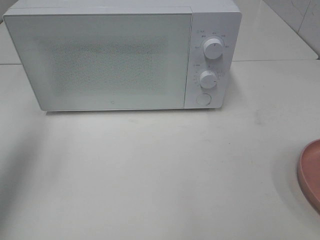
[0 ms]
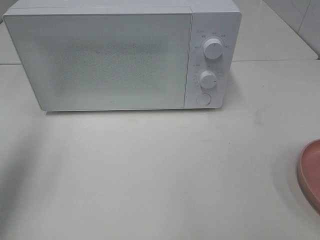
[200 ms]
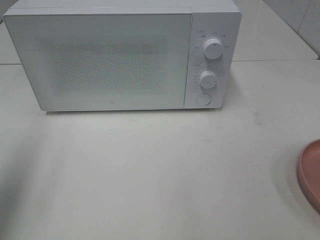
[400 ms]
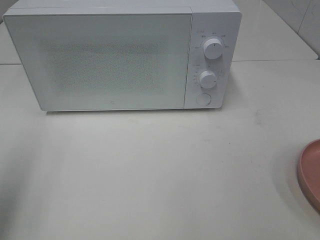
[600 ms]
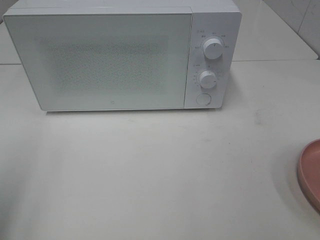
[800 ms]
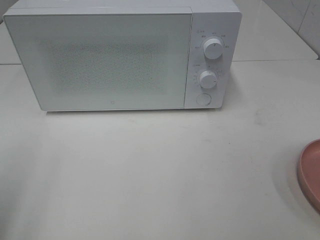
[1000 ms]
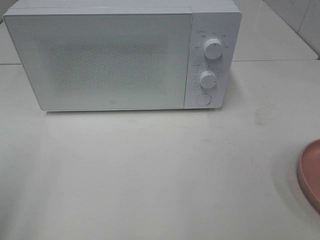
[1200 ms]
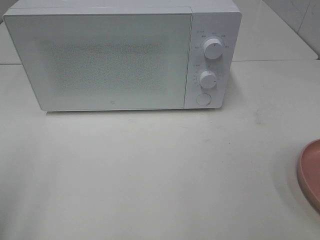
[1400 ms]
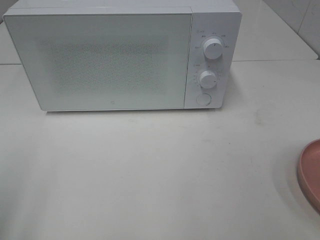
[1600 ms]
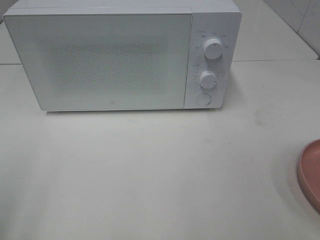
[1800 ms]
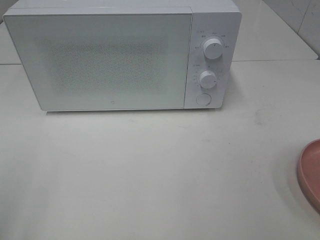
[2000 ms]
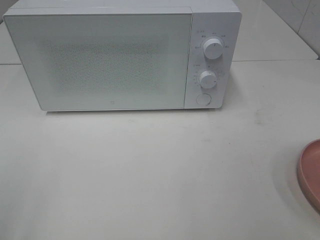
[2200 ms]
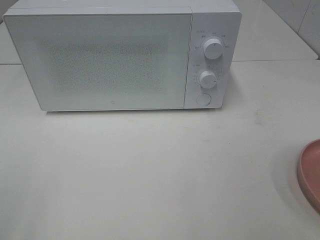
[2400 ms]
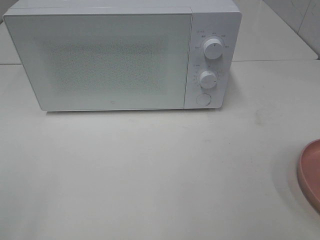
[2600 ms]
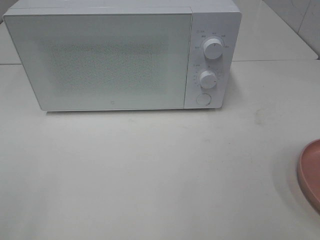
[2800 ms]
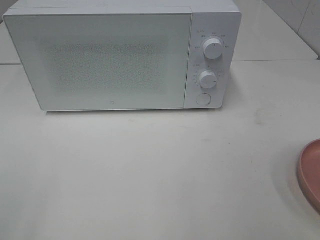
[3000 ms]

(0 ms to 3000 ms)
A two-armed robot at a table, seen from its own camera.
Task of the whole recording: Heat the burger.
0 ms - 1600 ms: The left gripper heads backward, covering about 15 cm.

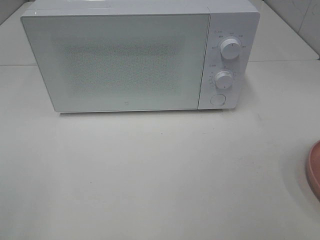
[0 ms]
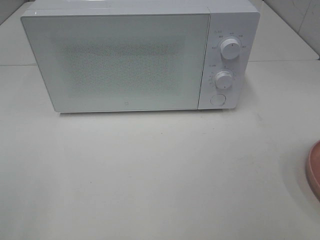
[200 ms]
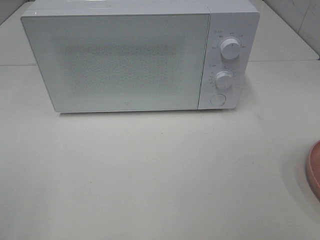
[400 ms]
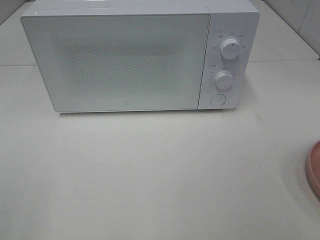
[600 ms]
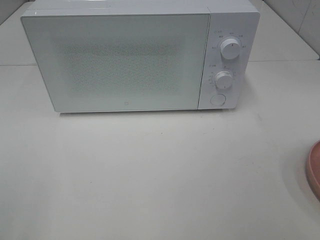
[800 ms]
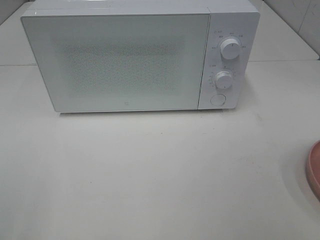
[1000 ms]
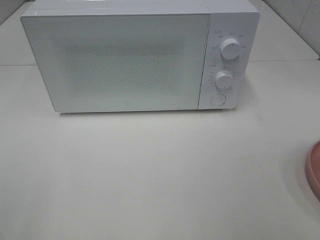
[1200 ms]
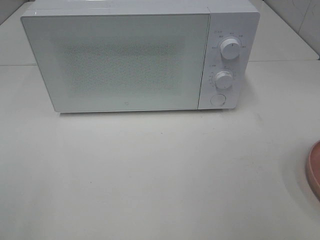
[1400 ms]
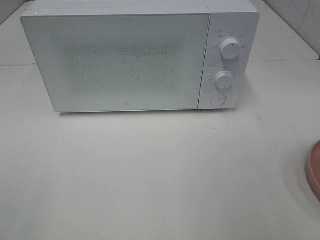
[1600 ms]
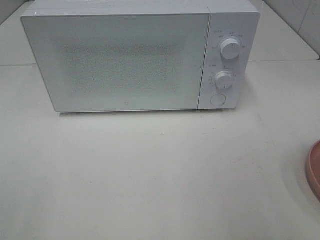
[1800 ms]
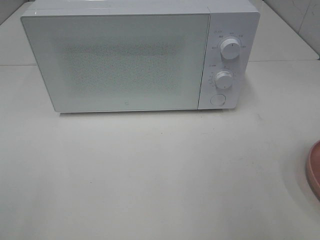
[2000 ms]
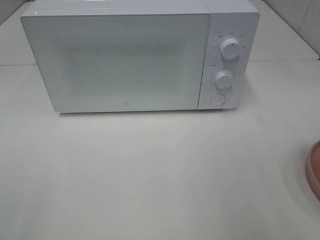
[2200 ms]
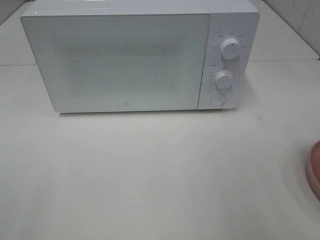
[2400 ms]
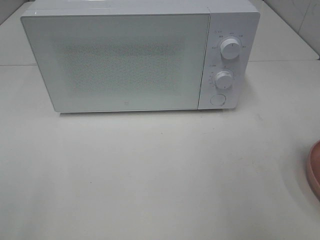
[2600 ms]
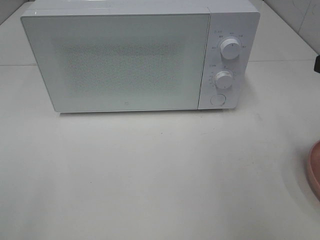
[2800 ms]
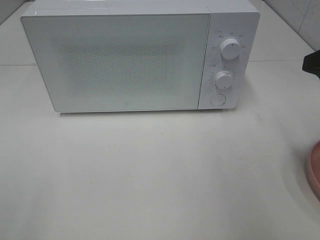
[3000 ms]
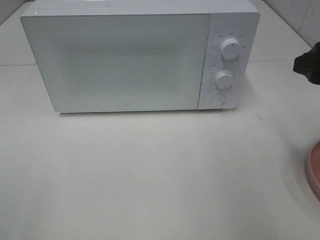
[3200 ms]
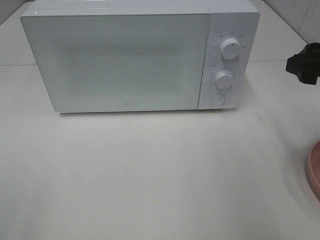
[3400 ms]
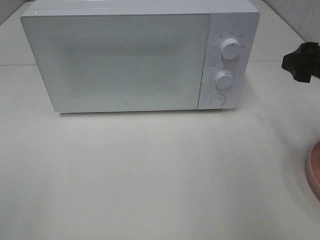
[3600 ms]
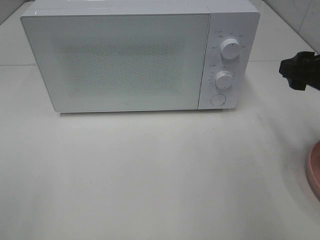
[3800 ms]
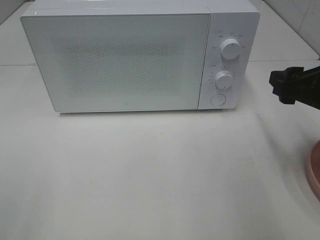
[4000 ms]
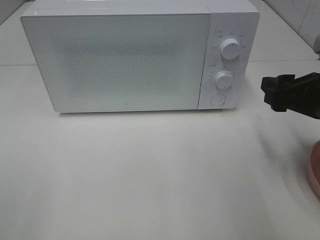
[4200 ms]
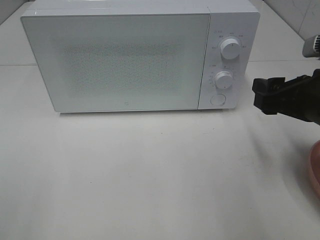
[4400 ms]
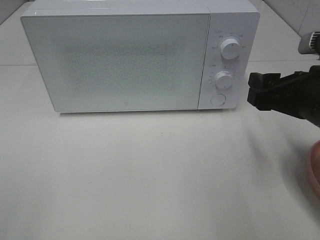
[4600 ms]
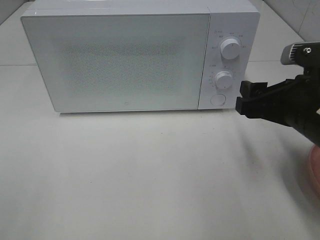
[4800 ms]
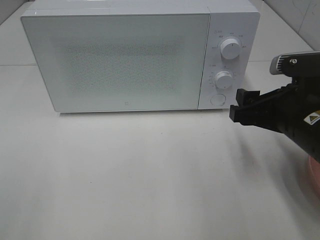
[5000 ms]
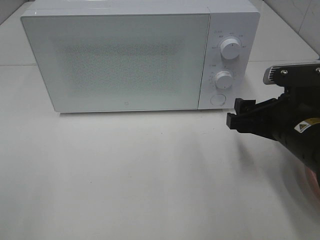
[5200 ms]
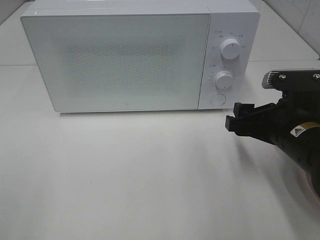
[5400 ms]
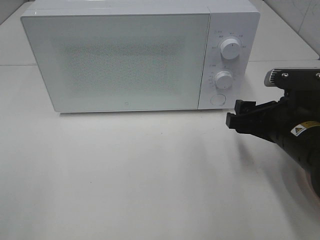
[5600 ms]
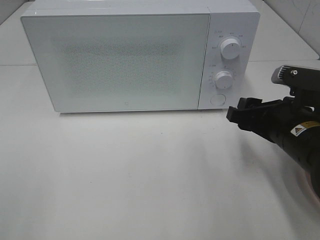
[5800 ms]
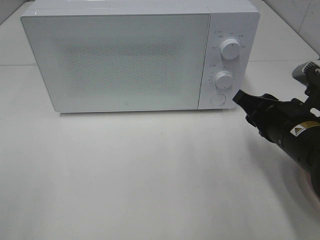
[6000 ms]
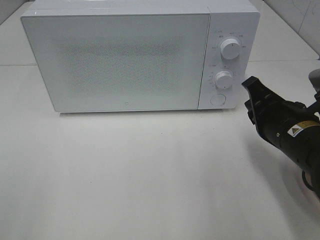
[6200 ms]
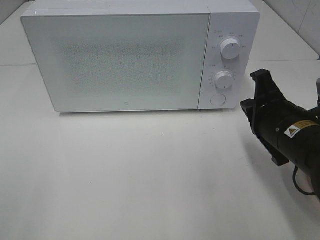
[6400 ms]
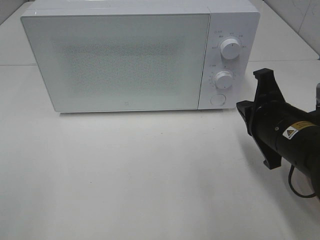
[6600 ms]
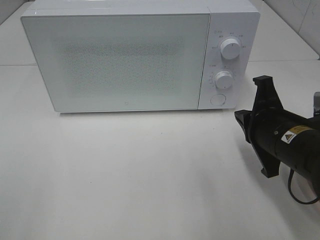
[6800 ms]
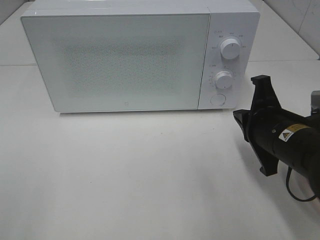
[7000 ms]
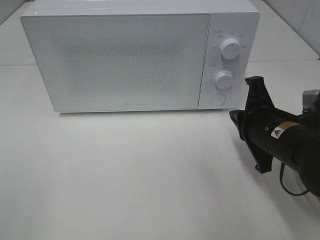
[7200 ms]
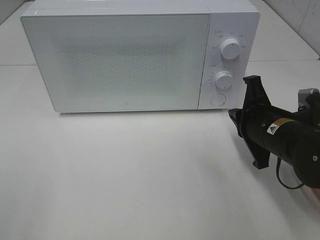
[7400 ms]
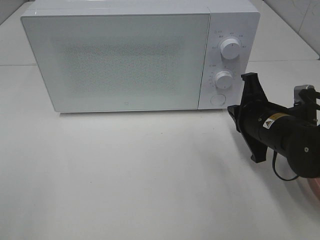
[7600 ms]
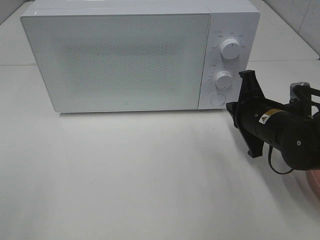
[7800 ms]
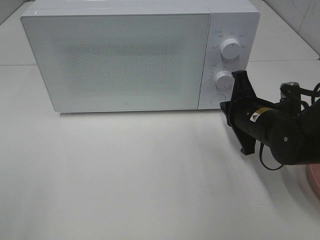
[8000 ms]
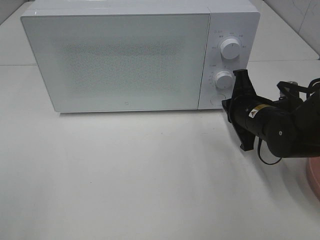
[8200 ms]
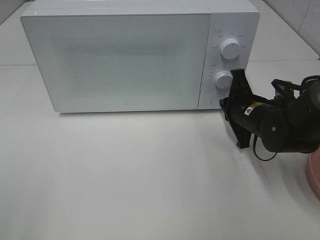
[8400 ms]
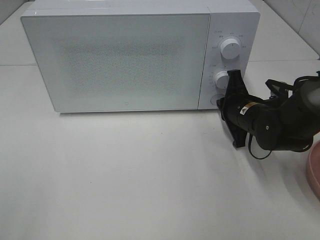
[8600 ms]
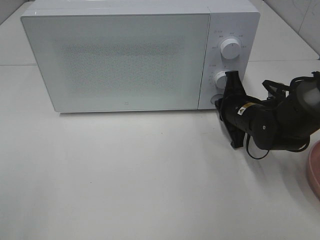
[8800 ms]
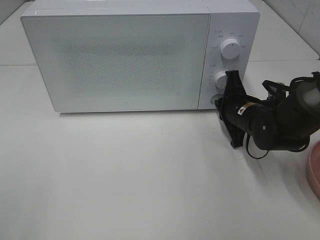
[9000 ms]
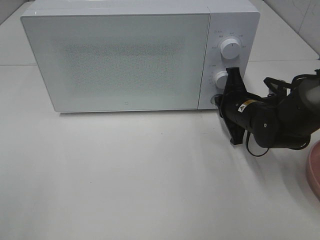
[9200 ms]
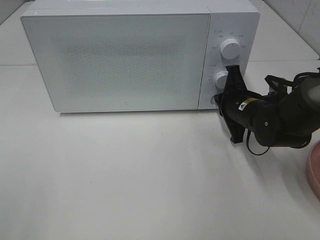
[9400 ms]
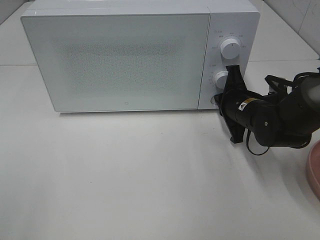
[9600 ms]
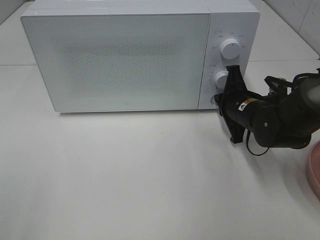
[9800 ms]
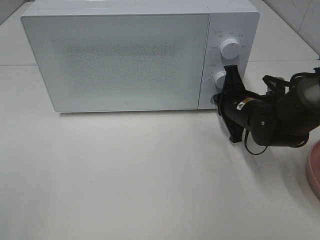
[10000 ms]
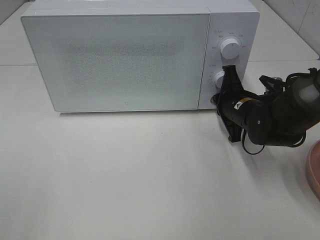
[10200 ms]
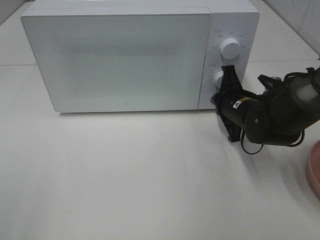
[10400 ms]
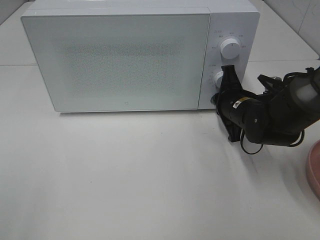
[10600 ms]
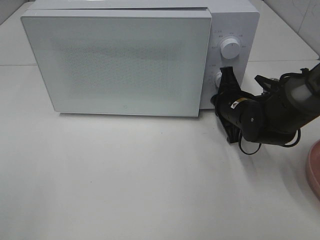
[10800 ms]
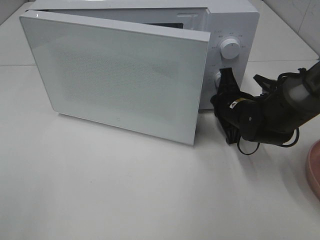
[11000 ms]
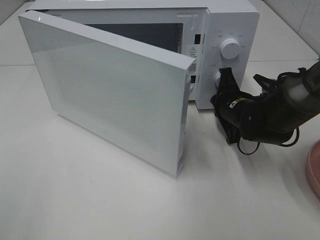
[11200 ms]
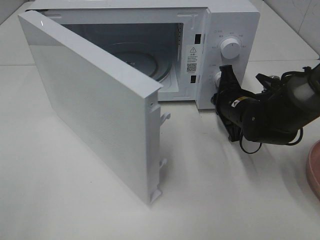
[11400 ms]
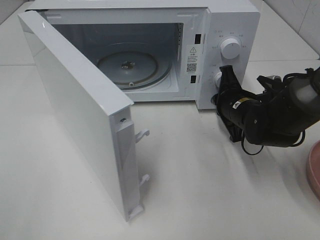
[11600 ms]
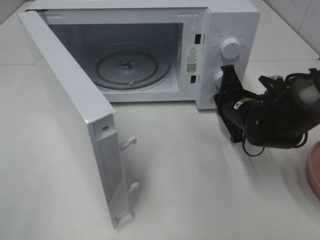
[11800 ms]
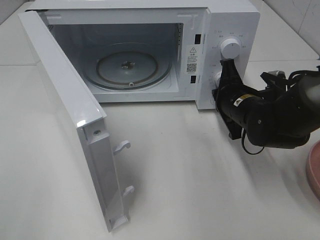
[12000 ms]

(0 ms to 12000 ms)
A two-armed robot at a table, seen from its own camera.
Task of the whole recording: Heat the burger.
Step, 0 ms - 11800 ms: Right hand: press the switch.
1600 ms - 3000 ms: The right gripper heads forward, covering roughly 15 cm.
3000 ms - 4400 ms: The right gripper goes about 10 cm downward.
4400 ms - 6000 ms: The right gripper travels downward by about 5 cm, and closes.
6000 ms - 7600 ms: The right gripper shifts by about 5 cm, and closes its fingers.
7600 ms - 9000 ms: The right gripper is displaced forward by about 5 cm.
9000 ms - 10400 ms: The grippers make only small movements.

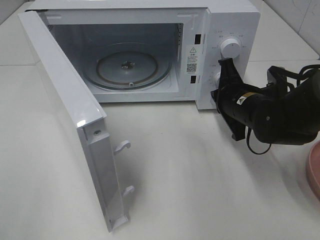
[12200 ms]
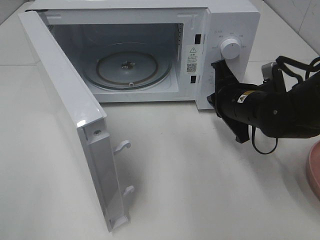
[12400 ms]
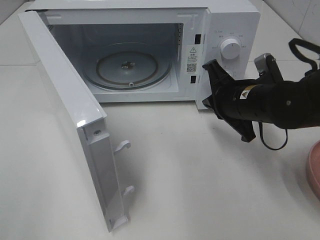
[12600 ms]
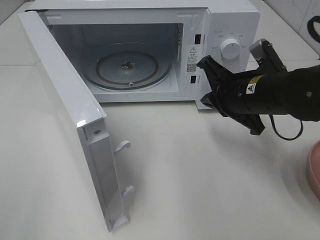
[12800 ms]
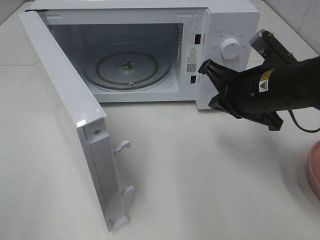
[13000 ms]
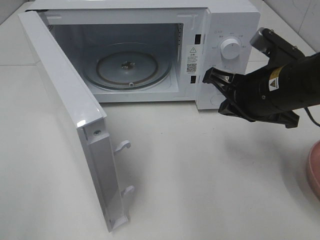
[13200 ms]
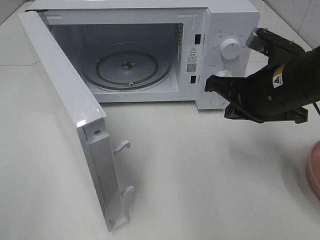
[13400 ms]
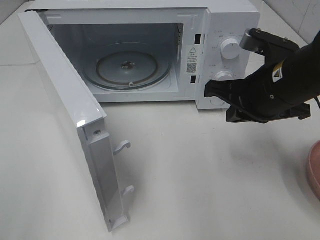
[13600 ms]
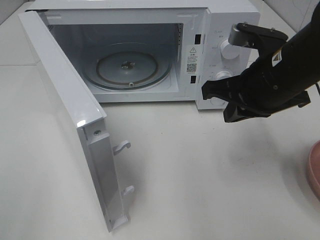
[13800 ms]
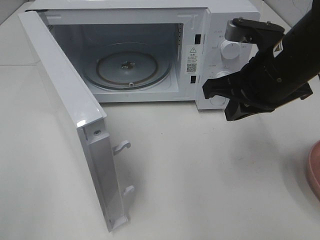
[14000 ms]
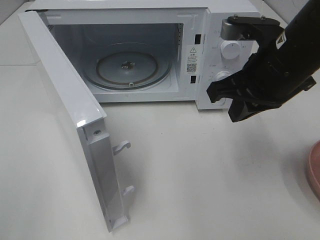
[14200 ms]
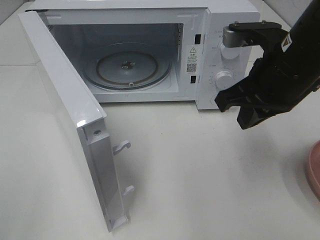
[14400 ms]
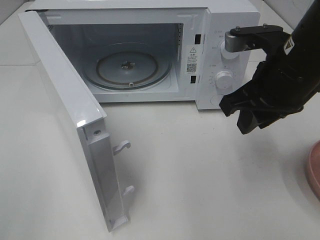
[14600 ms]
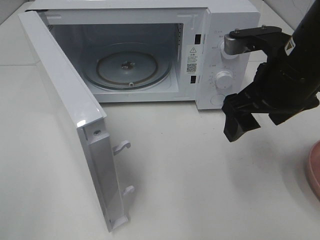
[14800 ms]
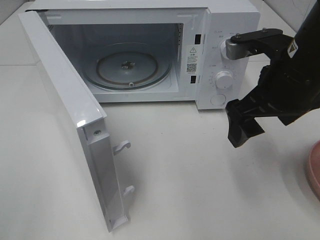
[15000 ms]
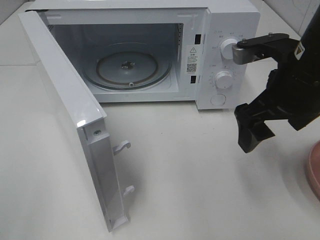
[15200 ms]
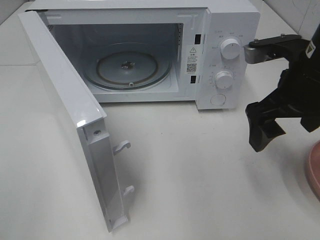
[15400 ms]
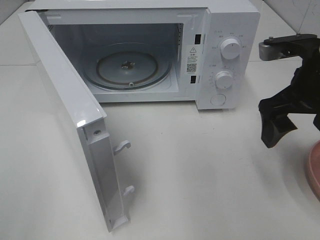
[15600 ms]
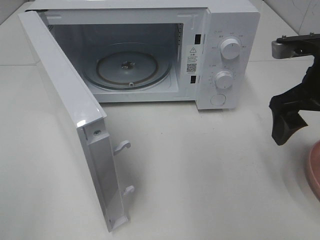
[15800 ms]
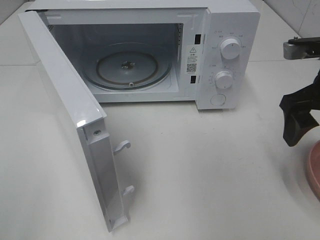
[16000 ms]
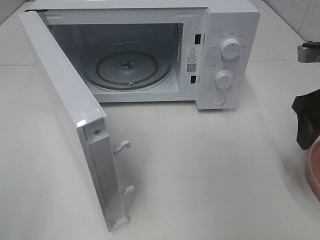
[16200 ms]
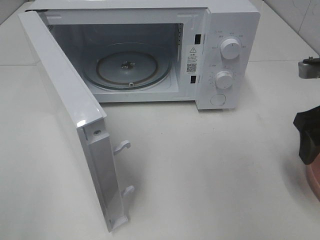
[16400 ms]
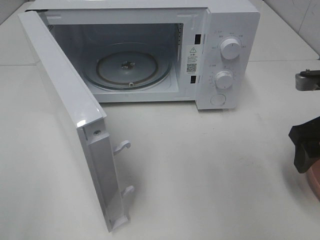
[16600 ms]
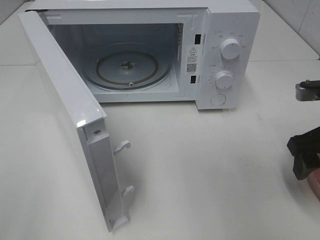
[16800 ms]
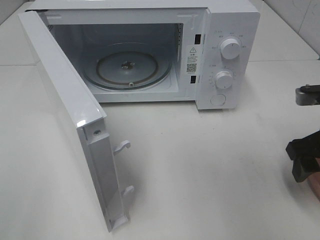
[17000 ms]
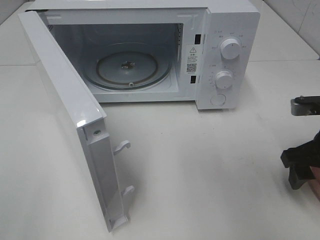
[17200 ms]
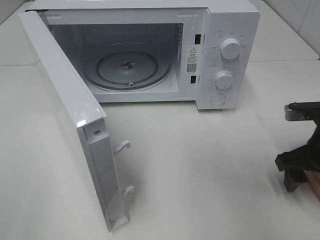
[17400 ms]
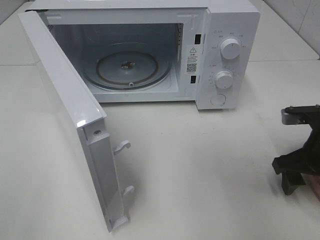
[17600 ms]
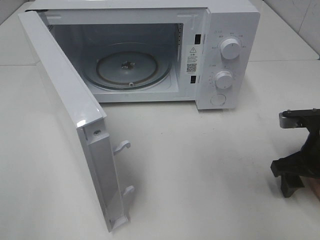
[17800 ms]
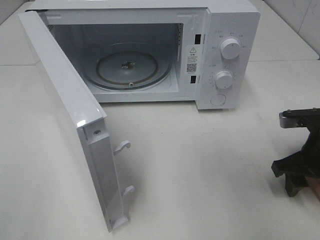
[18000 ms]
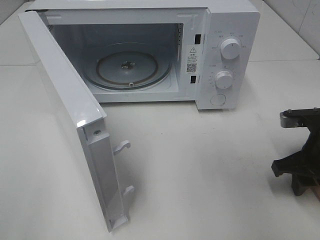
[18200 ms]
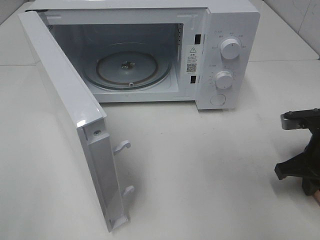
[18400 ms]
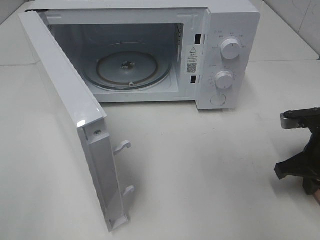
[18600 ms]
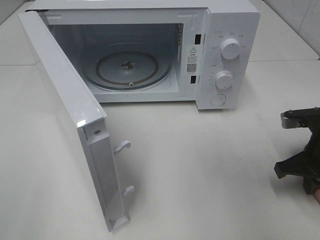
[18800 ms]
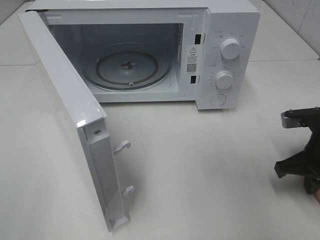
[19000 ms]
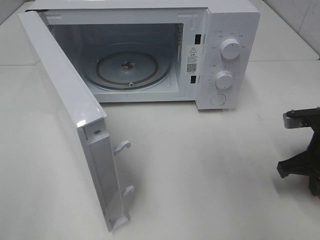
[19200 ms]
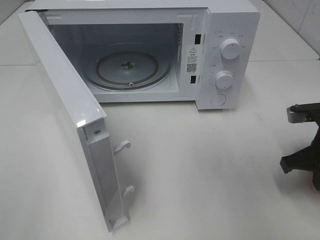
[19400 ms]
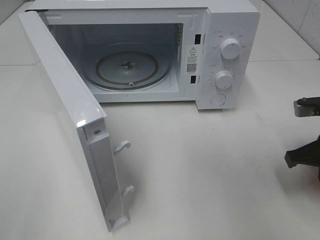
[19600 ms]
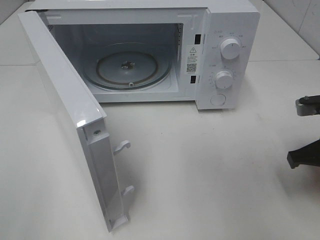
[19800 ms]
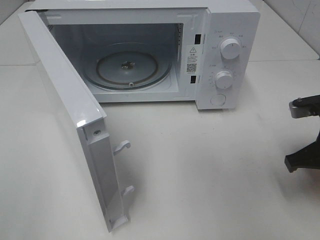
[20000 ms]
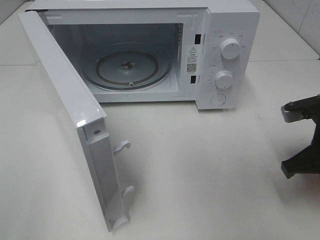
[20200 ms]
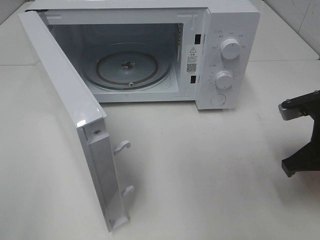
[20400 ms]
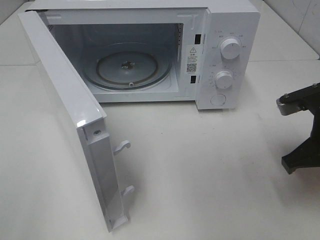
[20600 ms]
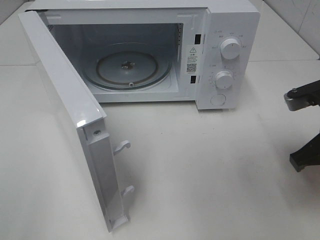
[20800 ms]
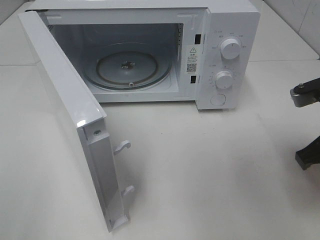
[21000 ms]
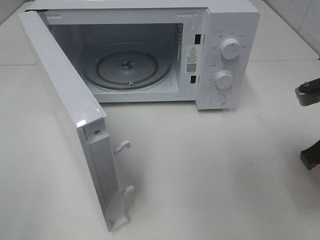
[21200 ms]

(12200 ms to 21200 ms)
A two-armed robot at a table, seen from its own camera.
Task of the whole recording: Heat the burger.
Step, 12200 ms - 19000 ms: Right hand: grab the plate with the hamburger.
12200 ms - 13800 ms: The right gripper heads upward and backward, covering approximately 15 cm.
13800 ms - 15200 ms: The right gripper opens up.
15200 ms - 16600 ms: The right gripper shifts some 10 cm to the right.
16600 ms - 18200 ms: The right gripper heads downward, covering about 10 cm, and closes up.
18200 ms - 19800 ms: The right gripper closes its fingers.
19800 ms - 21200 ms: The right gripper moves upward, about 5 cm.
